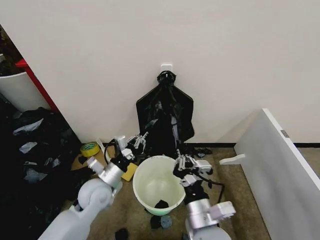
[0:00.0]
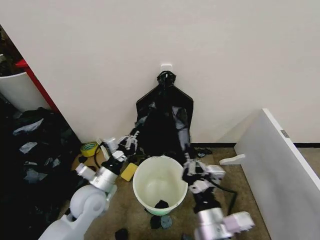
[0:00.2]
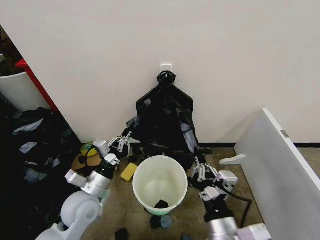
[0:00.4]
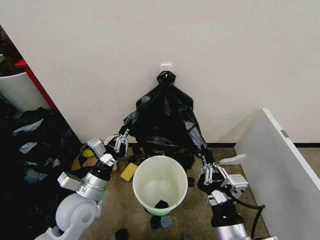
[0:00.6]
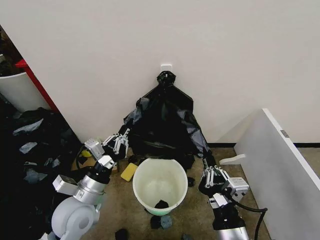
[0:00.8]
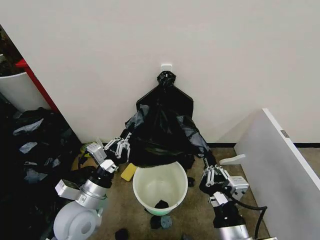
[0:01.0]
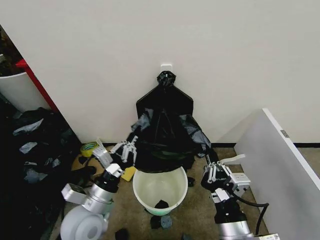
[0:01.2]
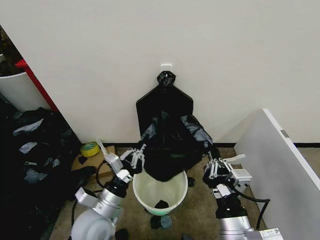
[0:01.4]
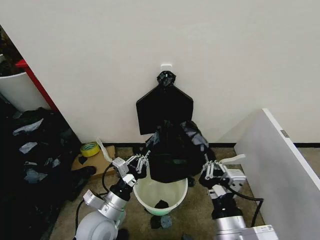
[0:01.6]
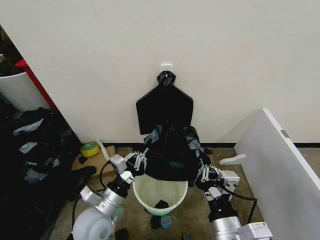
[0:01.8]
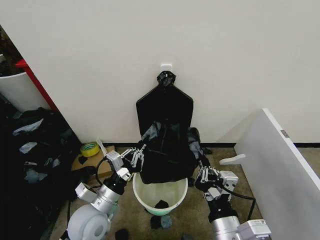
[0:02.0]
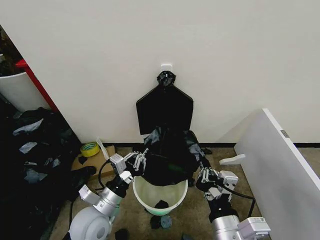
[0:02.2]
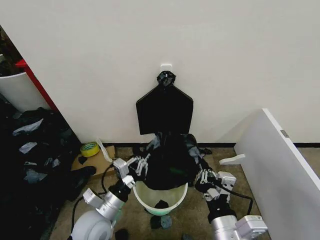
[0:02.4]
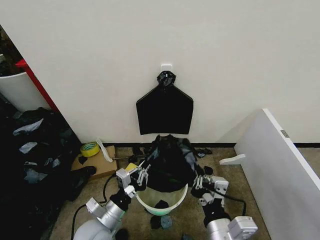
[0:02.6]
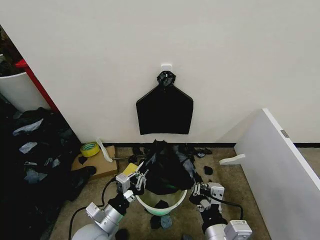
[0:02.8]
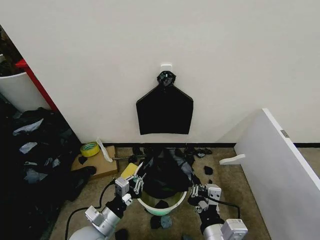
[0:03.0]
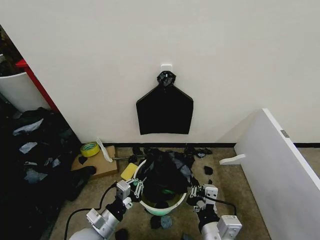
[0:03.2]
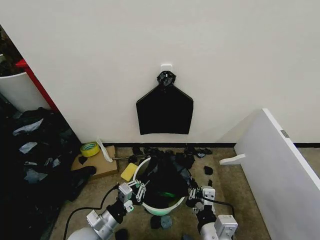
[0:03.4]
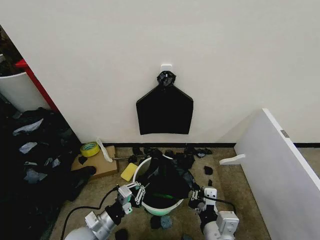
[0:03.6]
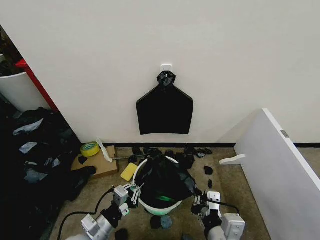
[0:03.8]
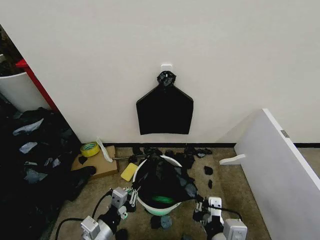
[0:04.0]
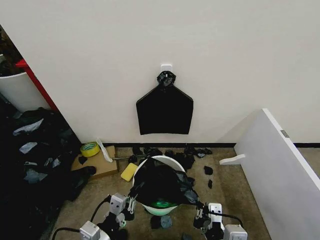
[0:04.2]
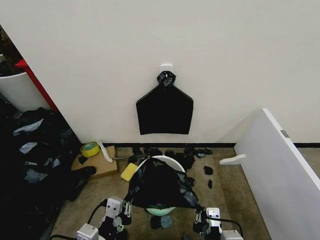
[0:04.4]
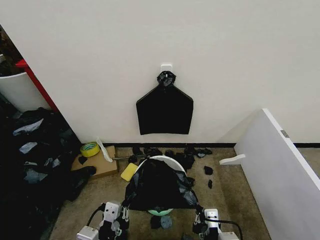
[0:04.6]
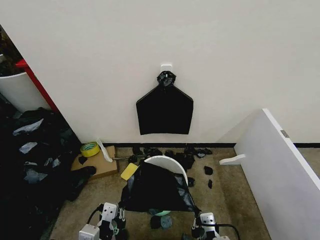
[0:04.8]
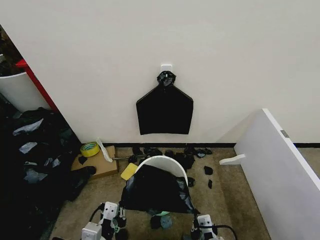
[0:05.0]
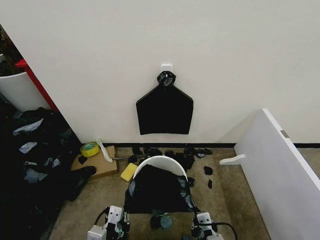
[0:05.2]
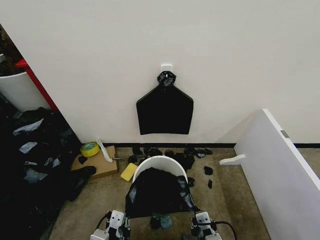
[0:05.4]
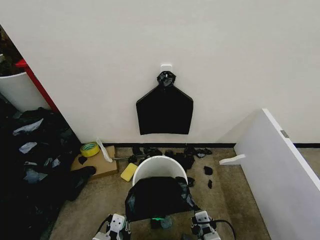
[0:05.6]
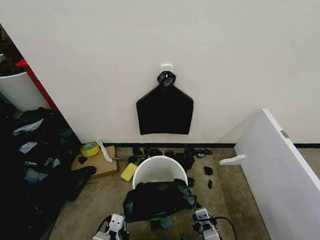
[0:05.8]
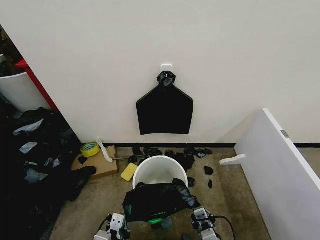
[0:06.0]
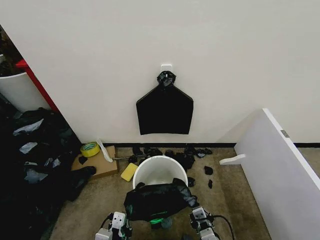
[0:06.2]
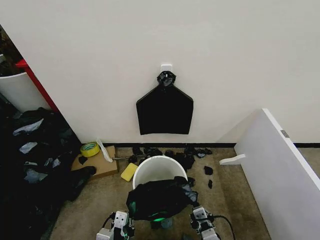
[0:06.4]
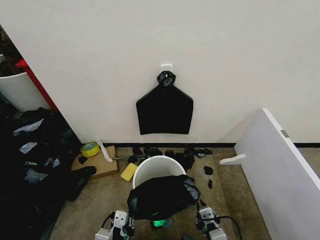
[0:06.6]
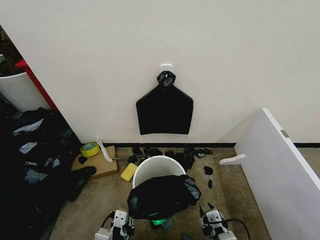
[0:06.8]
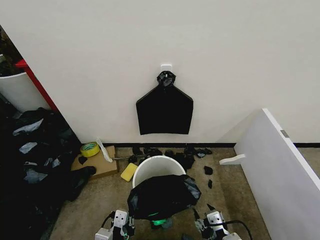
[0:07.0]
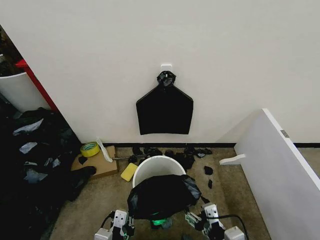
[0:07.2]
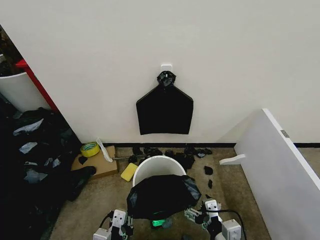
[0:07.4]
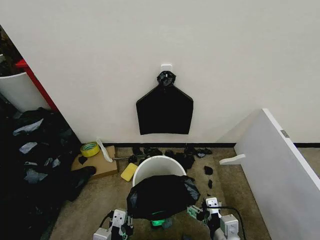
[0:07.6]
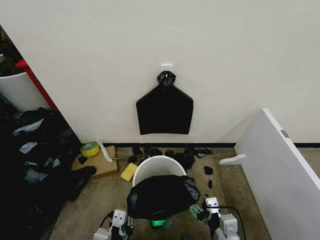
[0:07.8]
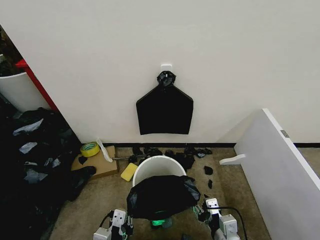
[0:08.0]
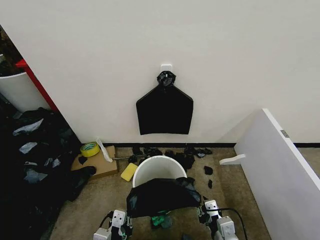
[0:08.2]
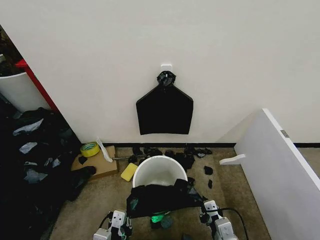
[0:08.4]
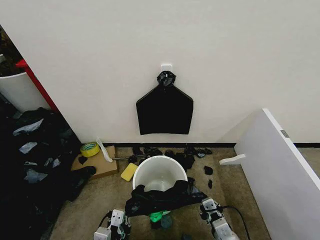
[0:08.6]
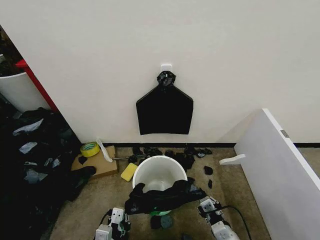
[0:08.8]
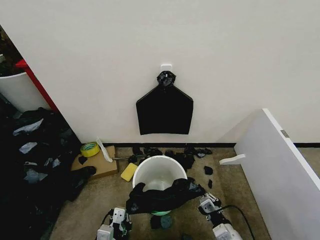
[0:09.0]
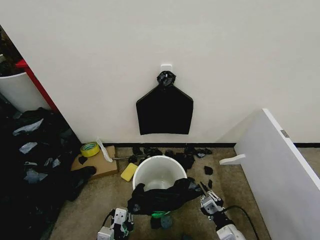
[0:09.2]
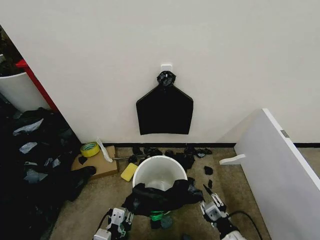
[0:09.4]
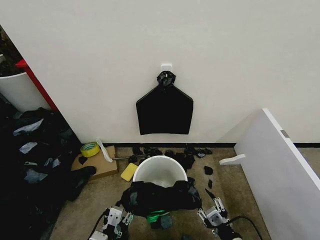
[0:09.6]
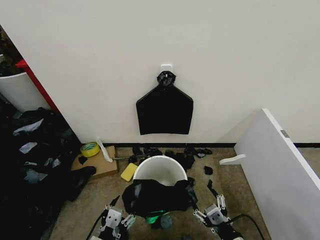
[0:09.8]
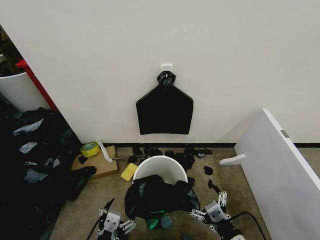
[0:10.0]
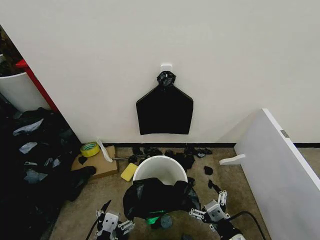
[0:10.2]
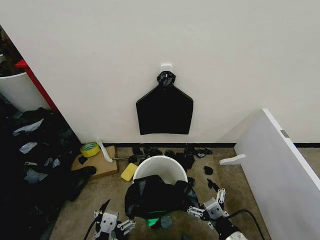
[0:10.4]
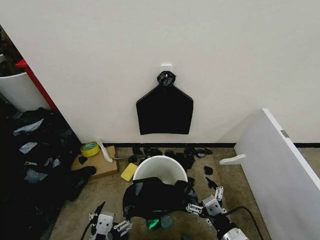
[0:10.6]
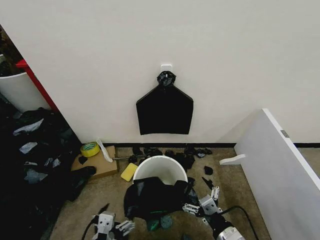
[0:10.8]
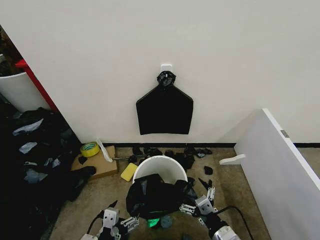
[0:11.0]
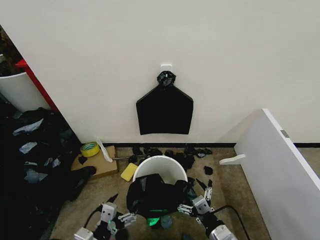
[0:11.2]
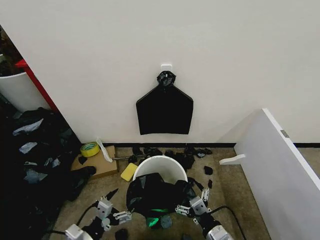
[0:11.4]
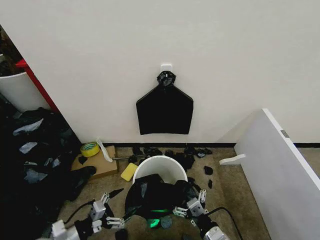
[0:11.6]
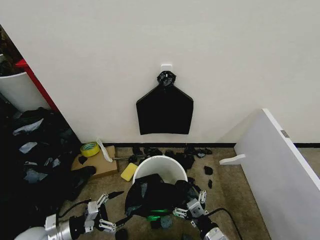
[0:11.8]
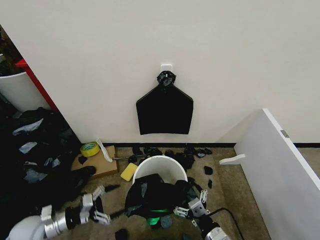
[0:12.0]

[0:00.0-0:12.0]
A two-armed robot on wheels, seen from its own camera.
Task of the whole recording: Place the garbage bag over the trash bin.
0:00.0 to 0:01.6: The left gripper travels backward by some 10 cm. The right gripper heads backward, covering about 5 cm.
0:01.6 to 0:03.0: The left gripper moves roughly 5 cm.
0:03.0 to 0:04.4: The left gripper moves upward and backward, some 10 cm.
0:04.4 to 0:06.0: The left gripper moves downward, approximately 10 cm, while the right gripper travels downward by some 15 cm.
0:06.0 to 0:07.6: The right gripper travels upward by some 5 cm, and opens its fingers.
0:07.6 to 0:09.0: The left gripper travels downward by about 5 cm. The right gripper heads downward, covering some 10 cm, and closes.
0:09.0 to 0:10.4: The right gripper travels upward by approximately 10 cm, and opens. The left gripper is displaced upward and backward by approximately 10 cm, and opens up.
0:10.4 to 0:12.0: The left gripper is displaced to the left and forward by approximately 30 cm. Meanwhile the right gripper moves downward, approximately 5 cm.

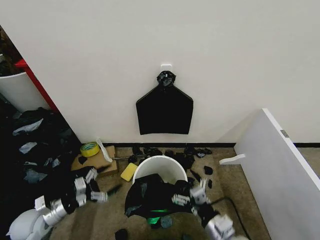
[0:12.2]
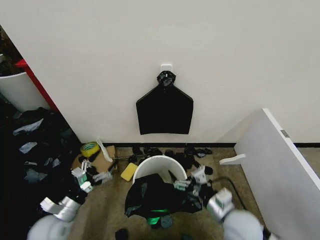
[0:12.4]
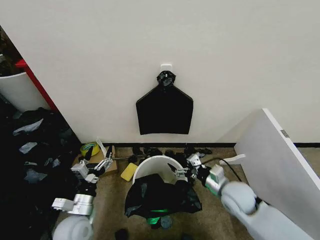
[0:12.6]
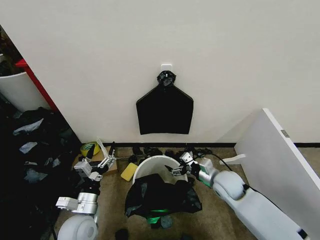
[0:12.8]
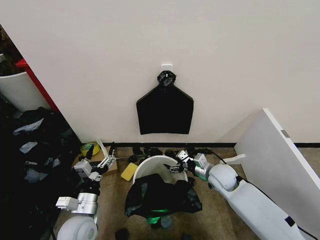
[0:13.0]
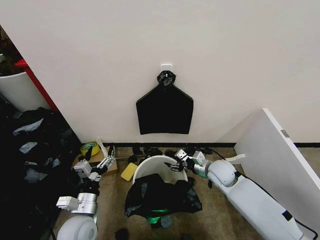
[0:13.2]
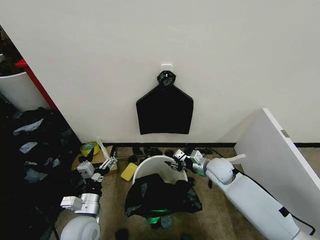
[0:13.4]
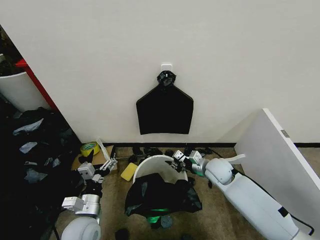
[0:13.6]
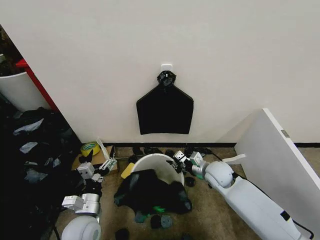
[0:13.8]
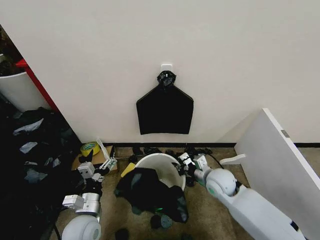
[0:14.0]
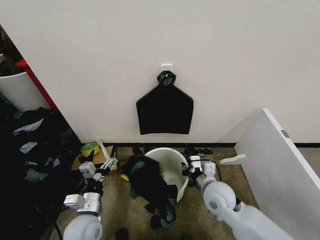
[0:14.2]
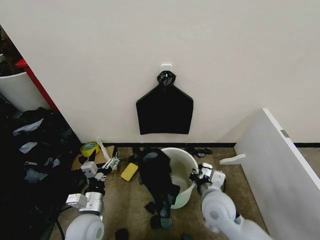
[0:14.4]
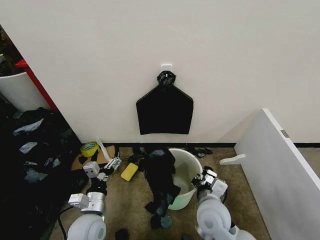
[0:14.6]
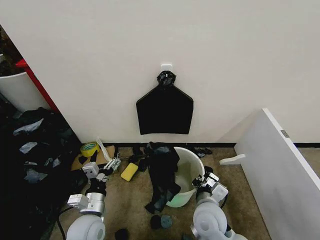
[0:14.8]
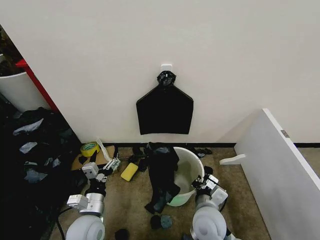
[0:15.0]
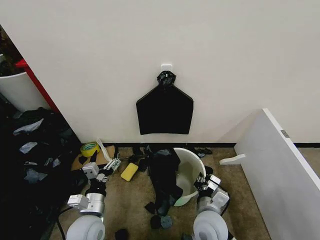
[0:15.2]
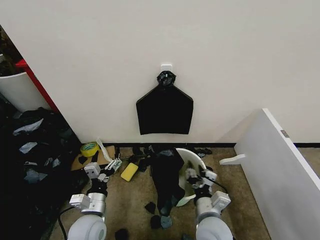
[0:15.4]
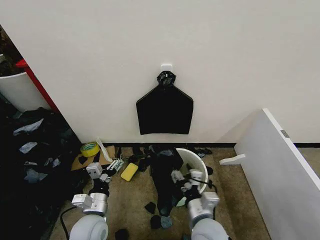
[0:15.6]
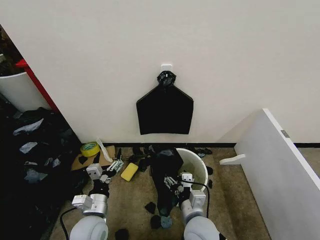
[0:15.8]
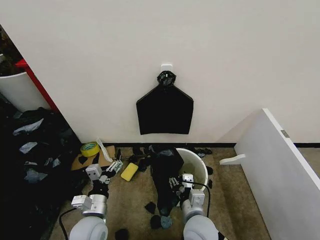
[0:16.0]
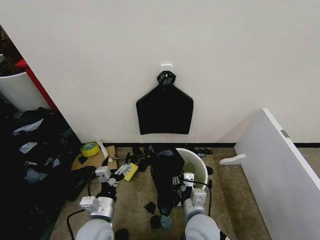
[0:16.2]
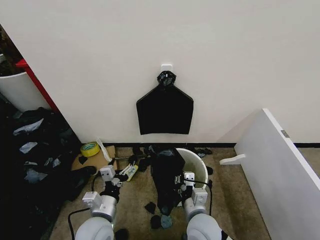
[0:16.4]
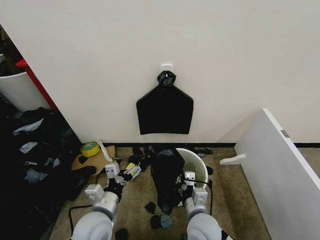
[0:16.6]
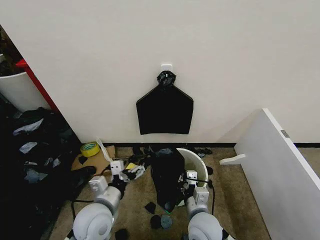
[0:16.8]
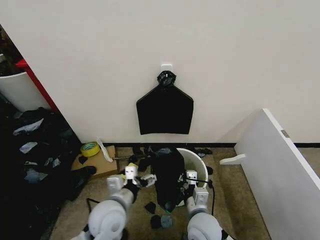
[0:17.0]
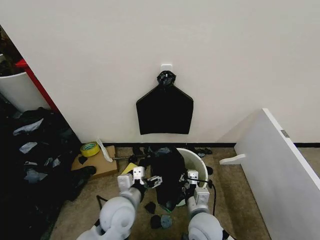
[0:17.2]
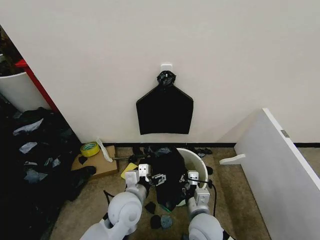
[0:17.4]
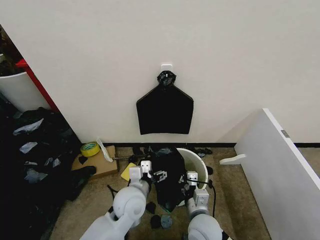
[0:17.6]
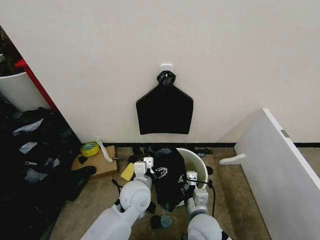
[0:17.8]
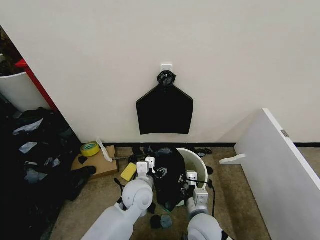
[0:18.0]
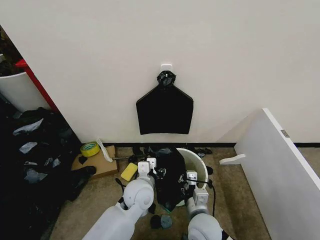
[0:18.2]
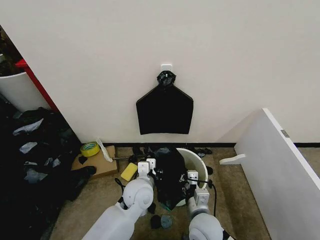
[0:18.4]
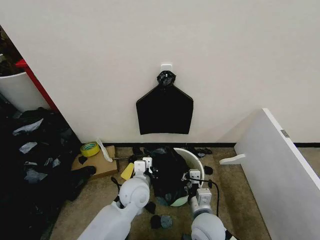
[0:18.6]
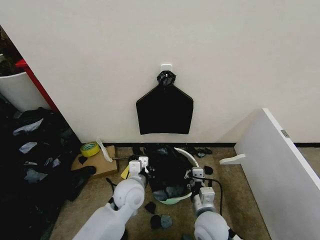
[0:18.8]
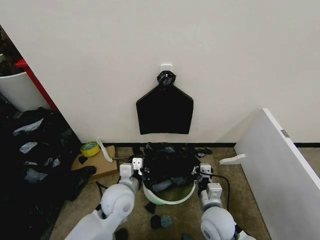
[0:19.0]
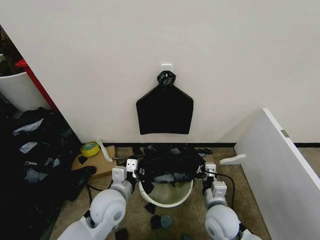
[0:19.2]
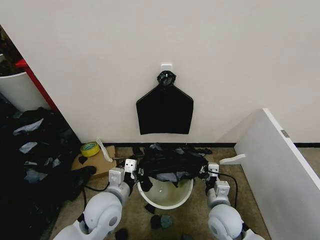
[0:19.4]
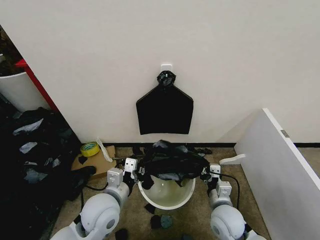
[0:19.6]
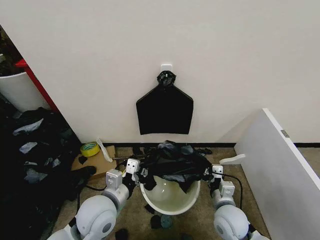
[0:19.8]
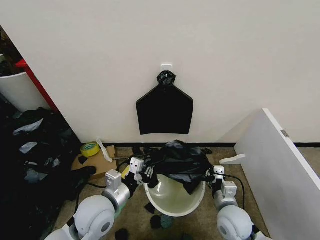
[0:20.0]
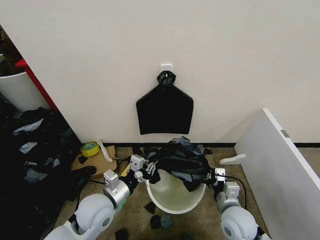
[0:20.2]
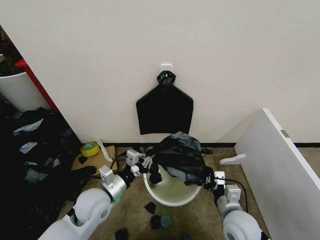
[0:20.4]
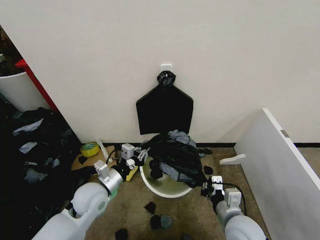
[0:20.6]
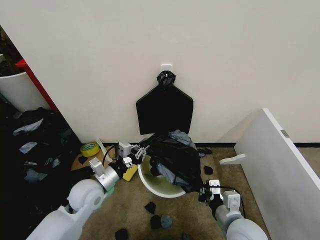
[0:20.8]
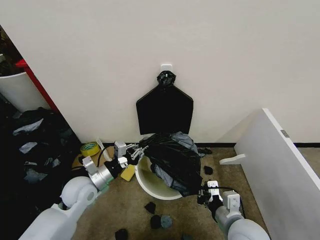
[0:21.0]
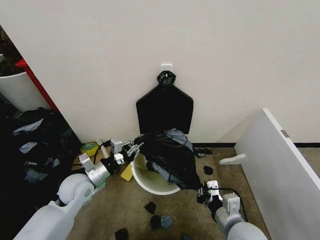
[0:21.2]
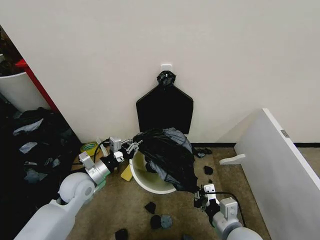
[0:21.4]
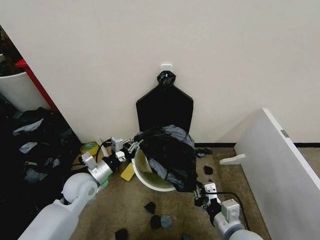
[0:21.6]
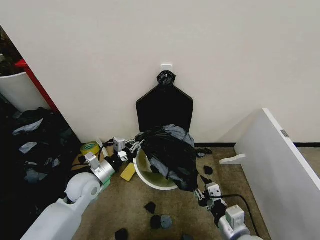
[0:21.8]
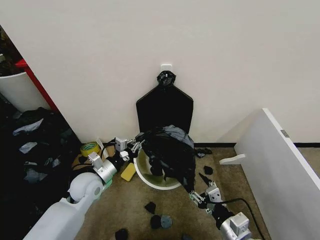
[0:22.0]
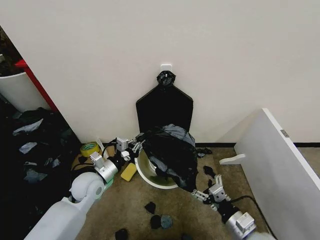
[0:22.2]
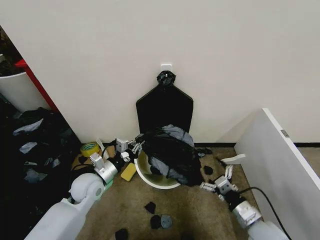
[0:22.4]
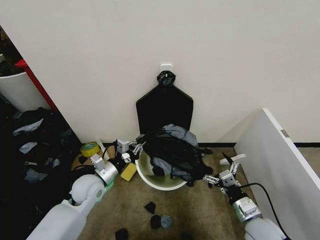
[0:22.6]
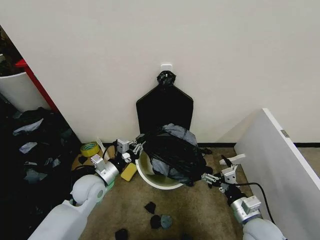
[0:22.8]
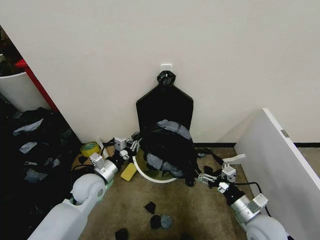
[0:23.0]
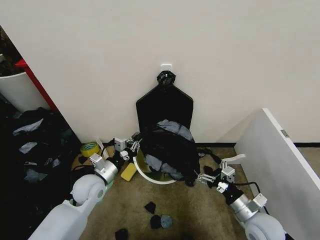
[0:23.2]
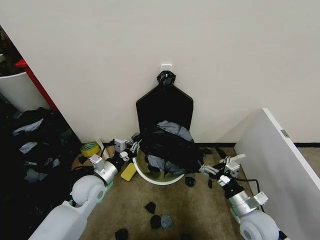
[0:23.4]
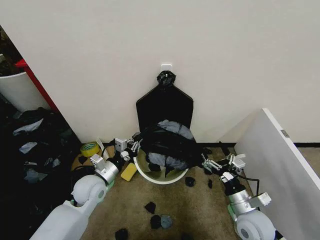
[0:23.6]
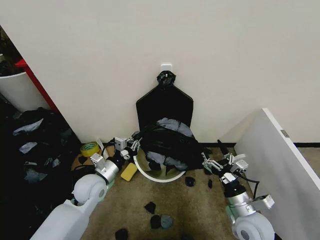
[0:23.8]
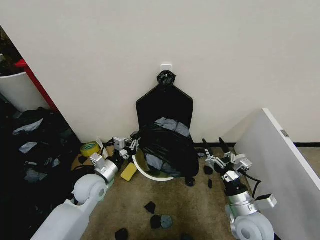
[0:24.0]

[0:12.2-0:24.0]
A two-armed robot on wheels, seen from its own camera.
Task of the whole recording: Place the garbage bag over the trash bin.
0:12.2 to 0:13.6: The left gripper moves to the right, some 15 cm. Meanwhile the right gripper moves forward, roughly 25 cm, and closes up.
0:13.6 to 0:15.2: The right gripper goes about 20 cm backward and to the left.
0:15.2 to 0:16.6: The right gripper opens, then closes once more, while the left gripper changes place by approximately 5 cm.
0:16.6 to 0:18.2: The left gripper goes some 15 cm to the right and forward, and closes.
0:18.2 to 0:19.6: The left gripper moves to the left, backward and upward, some 15 cm, and closes. The right gripper moves to the right, approximately 10 cm.
0:19.6 to 0:21.0: The right gripper heads upward and backward, covering approximately 10 cm. Meanwhile the left gripper goes roughly 10 cm to the left and forward.
0:21.0 to 0:22.6: The right gripper is displaced to the right and downward by roughly 10 cm, and opens.
